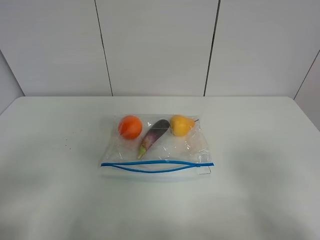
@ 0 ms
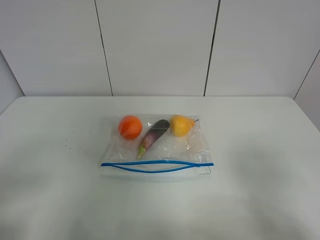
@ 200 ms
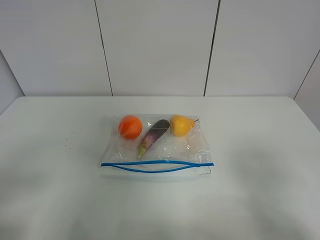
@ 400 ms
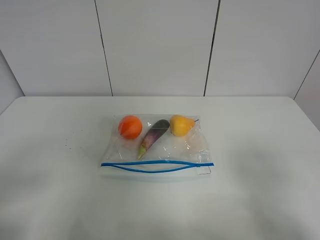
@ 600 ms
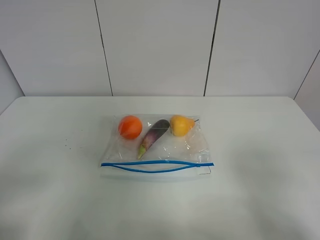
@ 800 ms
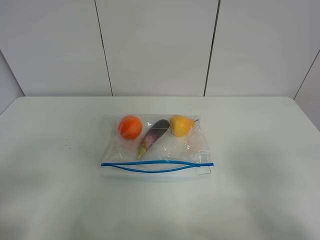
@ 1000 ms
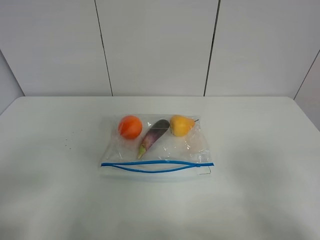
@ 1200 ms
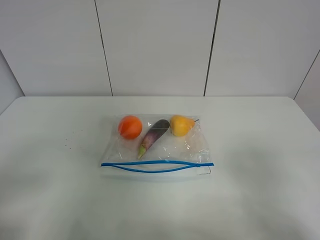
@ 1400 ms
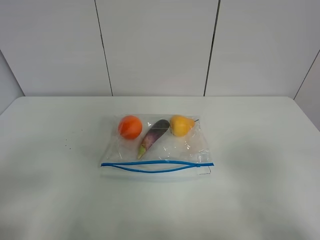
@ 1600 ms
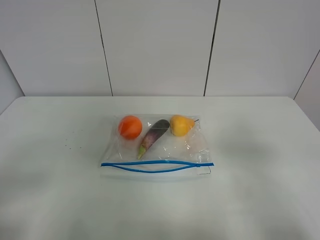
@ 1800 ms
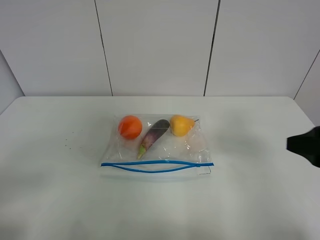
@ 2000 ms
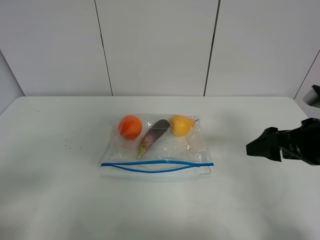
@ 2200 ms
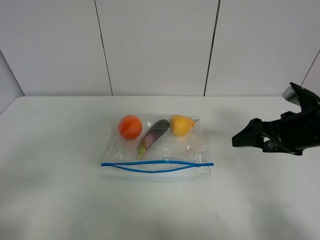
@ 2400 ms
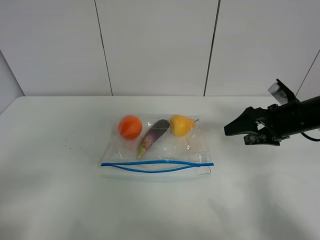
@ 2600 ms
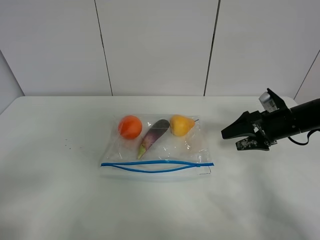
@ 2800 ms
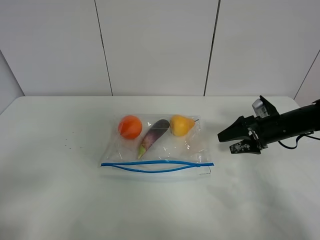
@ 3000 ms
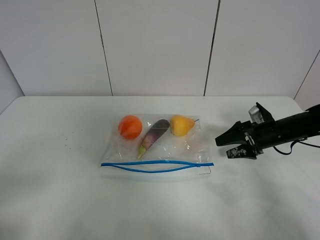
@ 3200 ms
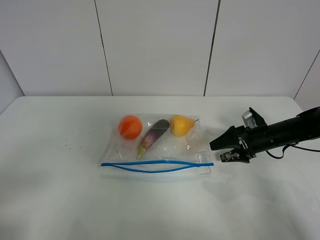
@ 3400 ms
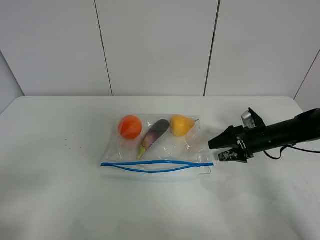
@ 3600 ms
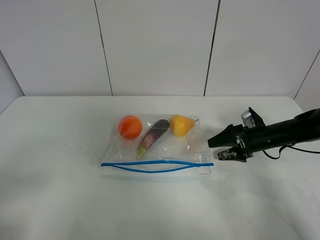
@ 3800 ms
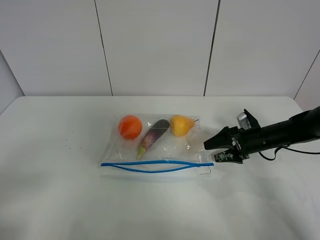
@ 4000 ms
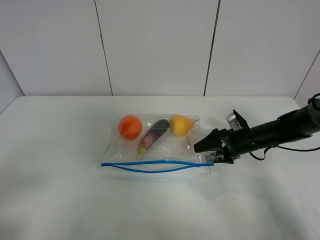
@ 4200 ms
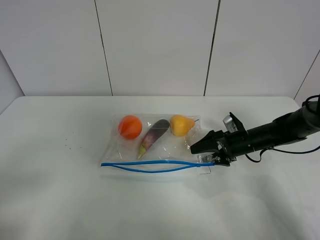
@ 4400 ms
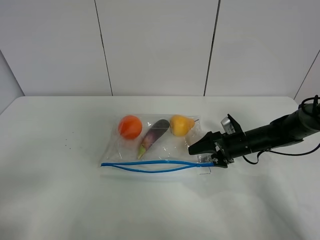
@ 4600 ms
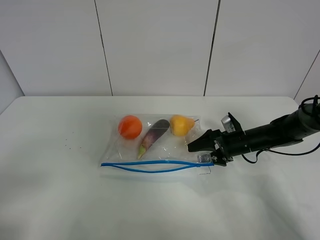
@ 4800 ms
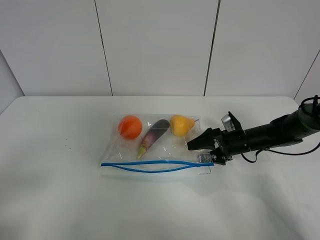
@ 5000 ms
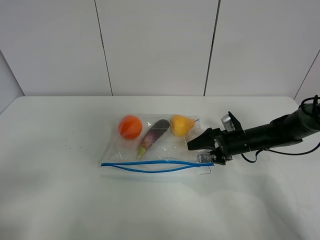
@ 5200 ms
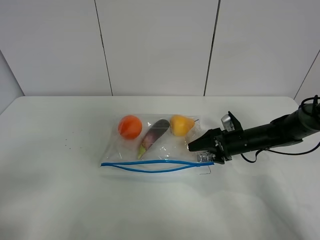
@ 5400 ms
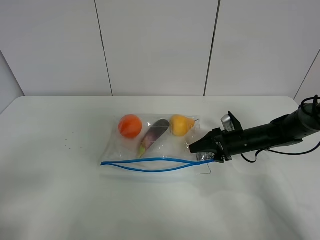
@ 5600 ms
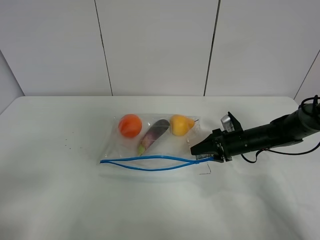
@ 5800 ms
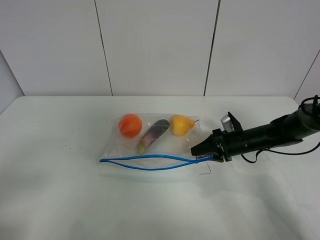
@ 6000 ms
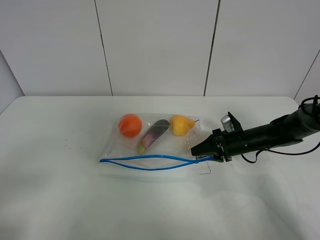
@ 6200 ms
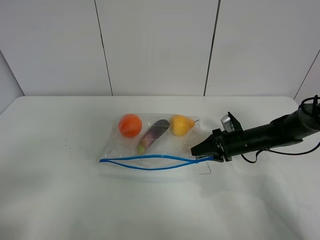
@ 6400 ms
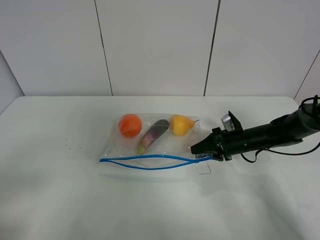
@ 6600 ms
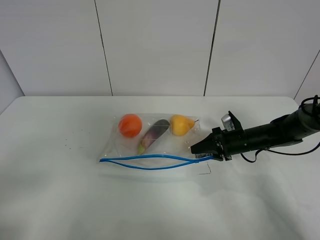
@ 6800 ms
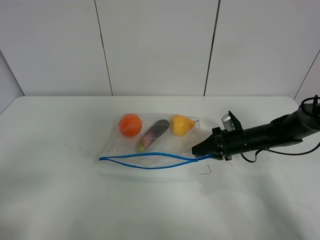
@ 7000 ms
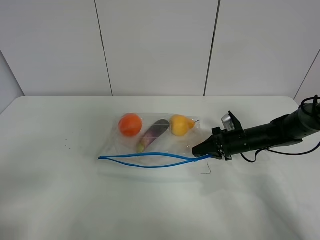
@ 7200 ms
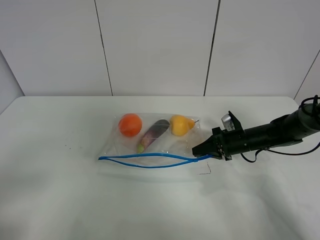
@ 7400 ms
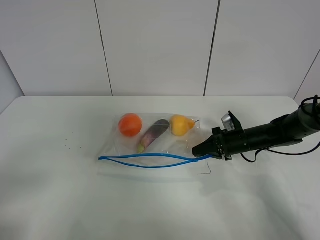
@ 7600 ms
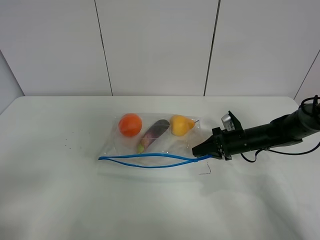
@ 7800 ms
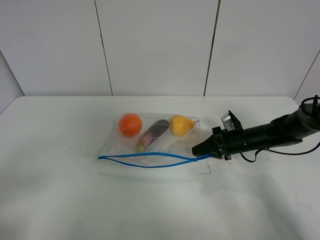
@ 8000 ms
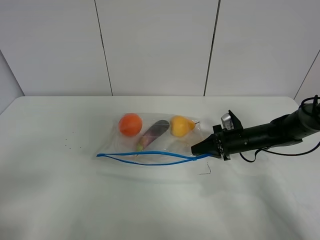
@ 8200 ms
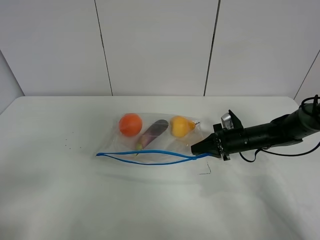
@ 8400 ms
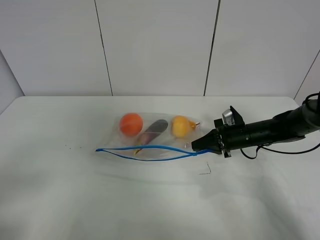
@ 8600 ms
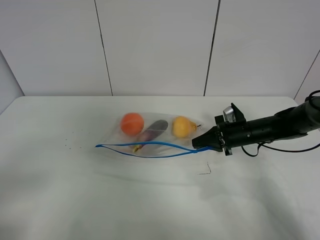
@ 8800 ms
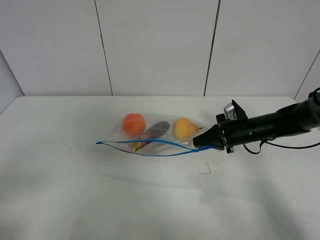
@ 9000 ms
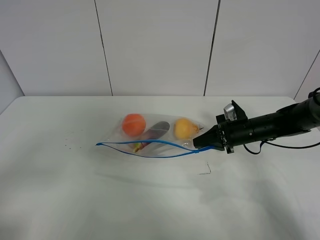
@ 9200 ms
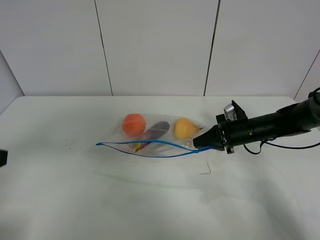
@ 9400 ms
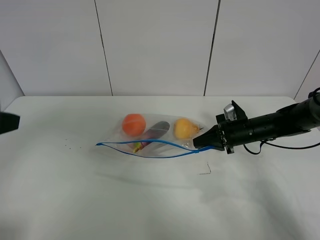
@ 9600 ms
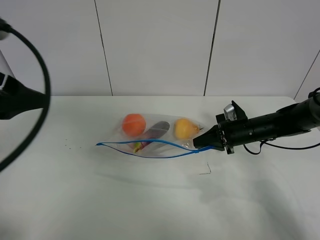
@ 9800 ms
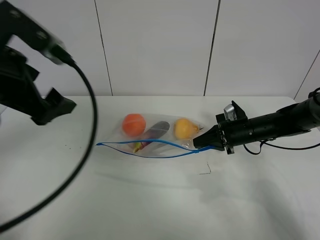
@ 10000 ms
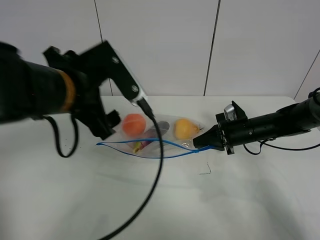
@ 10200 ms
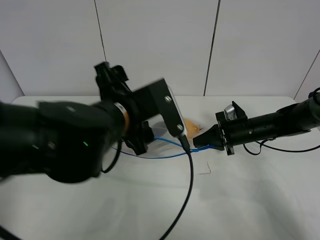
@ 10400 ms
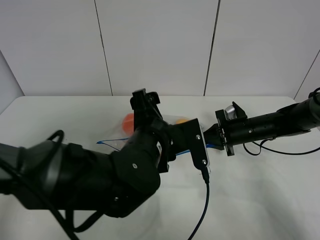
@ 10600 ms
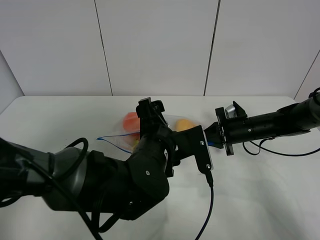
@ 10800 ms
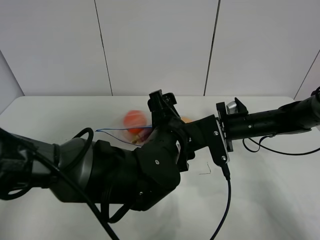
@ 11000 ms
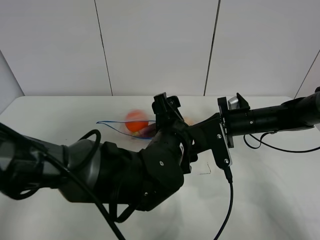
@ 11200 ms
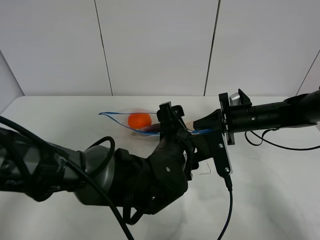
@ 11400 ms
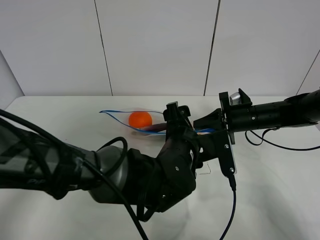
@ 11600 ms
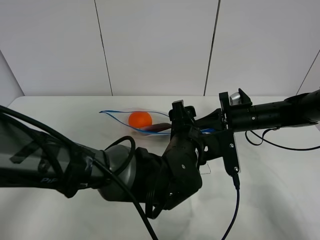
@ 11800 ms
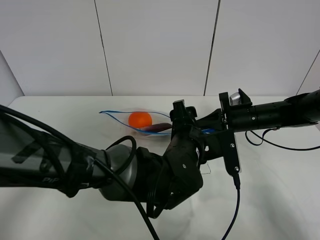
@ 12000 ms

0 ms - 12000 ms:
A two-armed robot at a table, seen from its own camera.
Step, 0 ms - 7400 ms: Grasp the fruit bag with right gripper.
Step, 7600 ms - 9200 ms: Lift the fruit bag with your right gripper.
1600 ms - 3000 ms: The right gripper shifts some 35 cm forward and downward.
3000 ms - 4400 ms: The right gripper travels to the left and downward by roughly 10 cm.
4400 ms - 6000 ms: The right gripper closes.
6000 ms - 7600 ms: The two grippers keep their place.
7600 ms - 9000 ms: There are only small adjustments of the grippers.
9000 ms - 10400 ms: The left gripper travels to the right and forward by roughly 35 cm.
10400 ms - 12000 ms: The left gripper moves to the right and downward, some 15 cm.

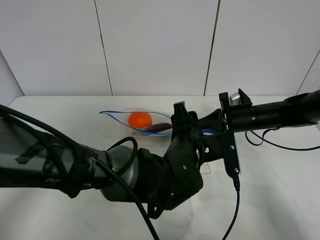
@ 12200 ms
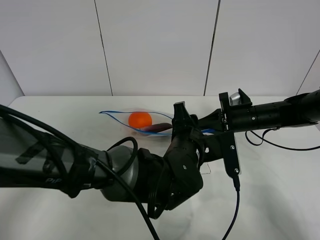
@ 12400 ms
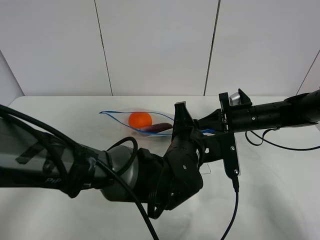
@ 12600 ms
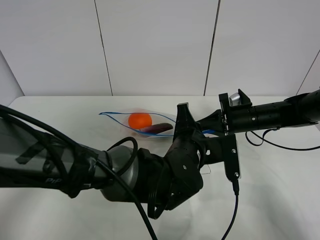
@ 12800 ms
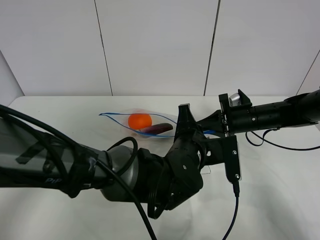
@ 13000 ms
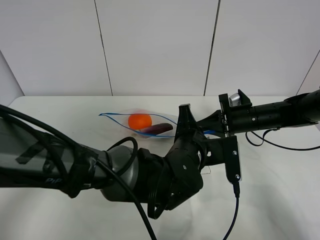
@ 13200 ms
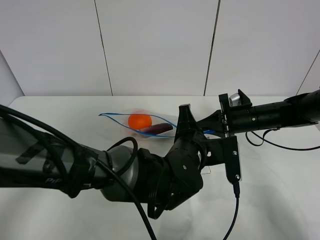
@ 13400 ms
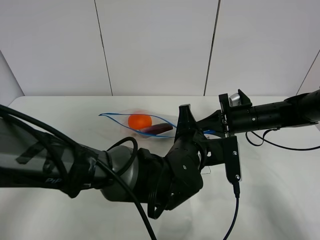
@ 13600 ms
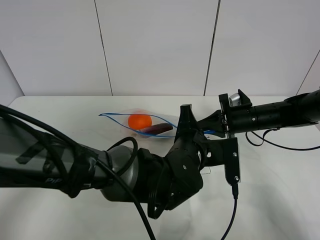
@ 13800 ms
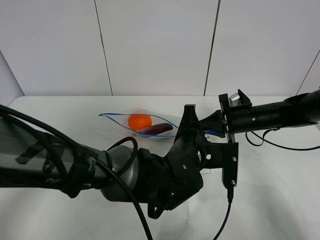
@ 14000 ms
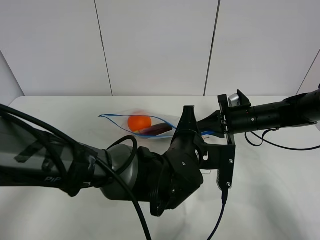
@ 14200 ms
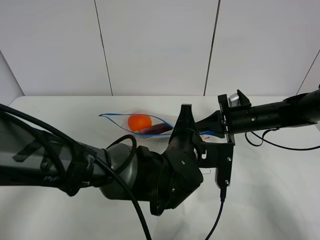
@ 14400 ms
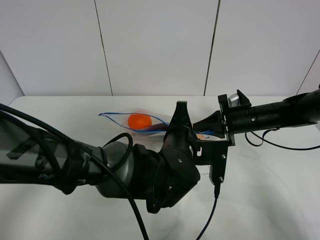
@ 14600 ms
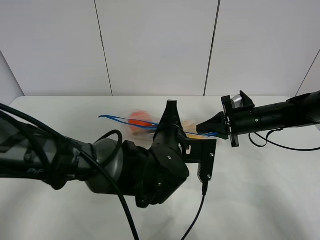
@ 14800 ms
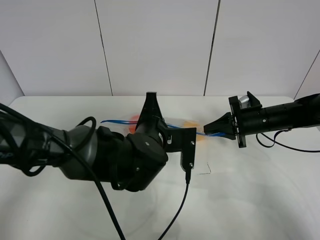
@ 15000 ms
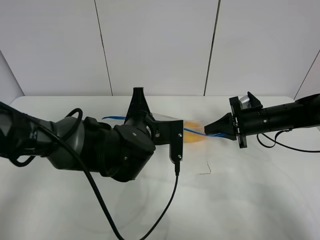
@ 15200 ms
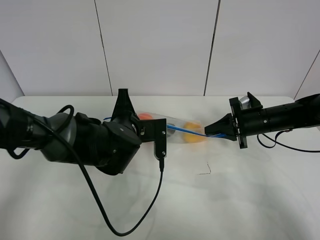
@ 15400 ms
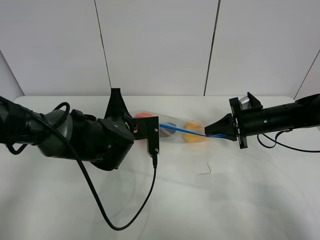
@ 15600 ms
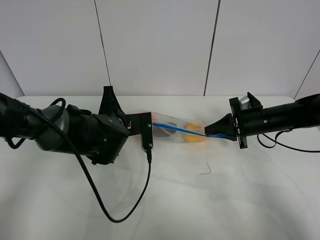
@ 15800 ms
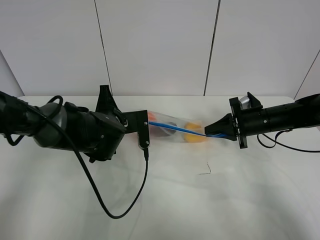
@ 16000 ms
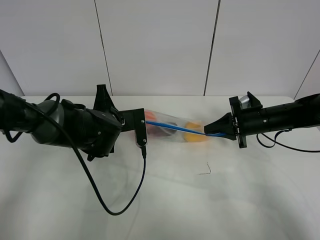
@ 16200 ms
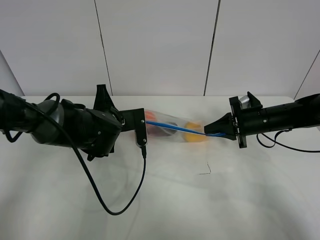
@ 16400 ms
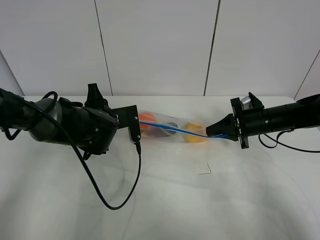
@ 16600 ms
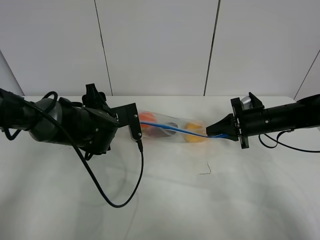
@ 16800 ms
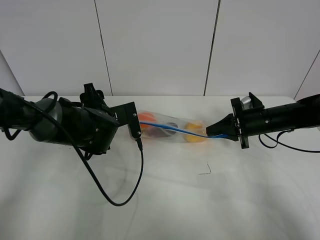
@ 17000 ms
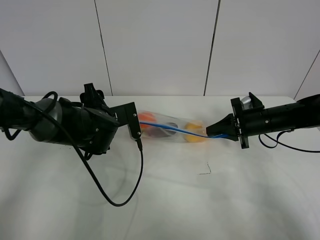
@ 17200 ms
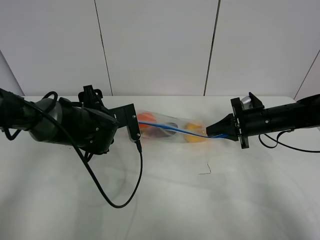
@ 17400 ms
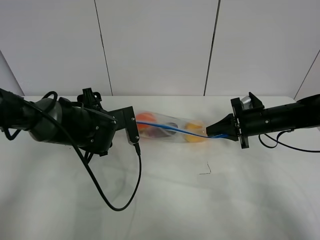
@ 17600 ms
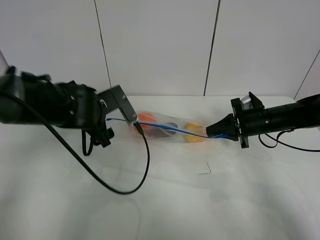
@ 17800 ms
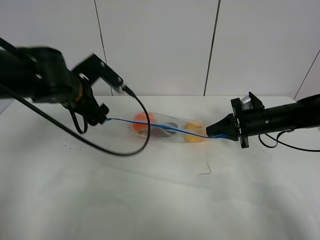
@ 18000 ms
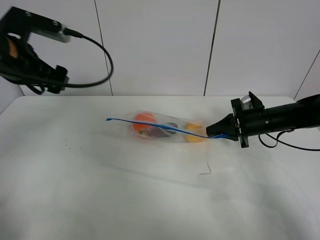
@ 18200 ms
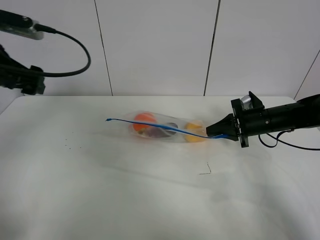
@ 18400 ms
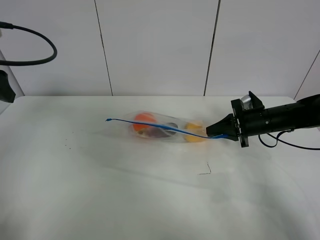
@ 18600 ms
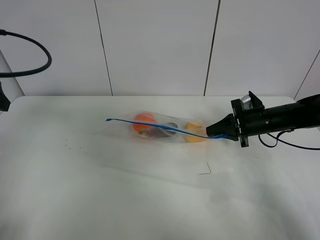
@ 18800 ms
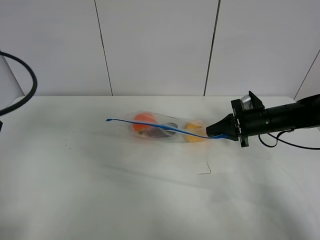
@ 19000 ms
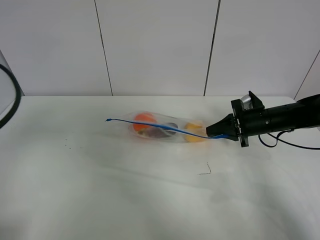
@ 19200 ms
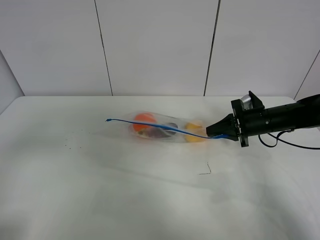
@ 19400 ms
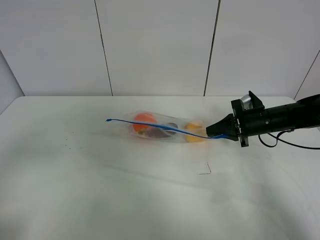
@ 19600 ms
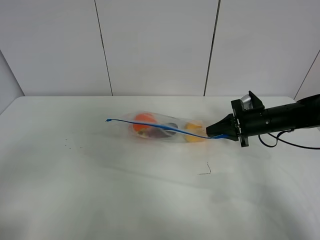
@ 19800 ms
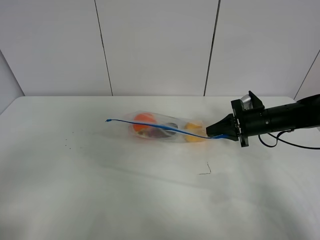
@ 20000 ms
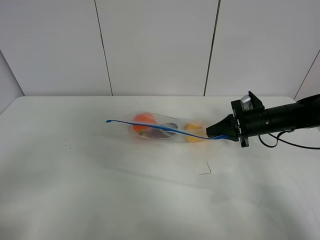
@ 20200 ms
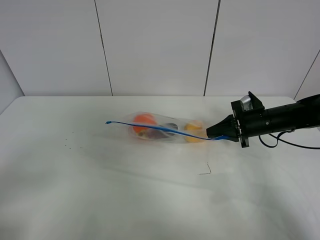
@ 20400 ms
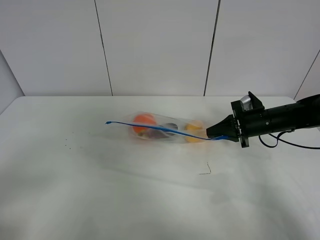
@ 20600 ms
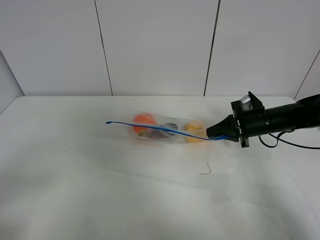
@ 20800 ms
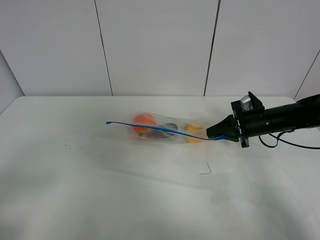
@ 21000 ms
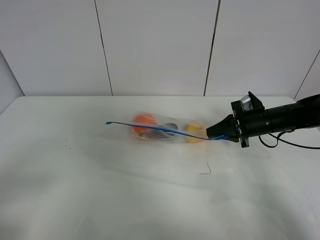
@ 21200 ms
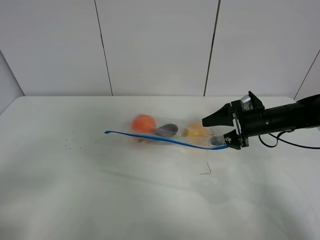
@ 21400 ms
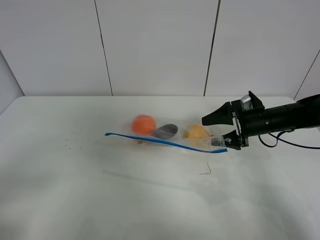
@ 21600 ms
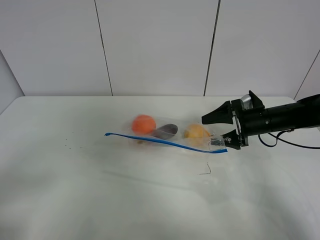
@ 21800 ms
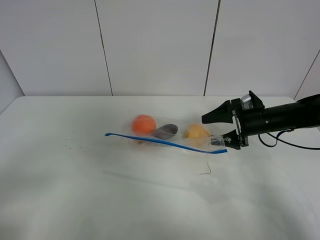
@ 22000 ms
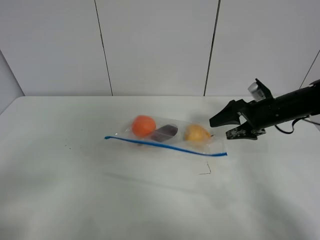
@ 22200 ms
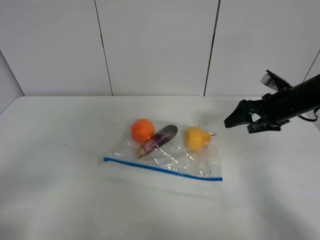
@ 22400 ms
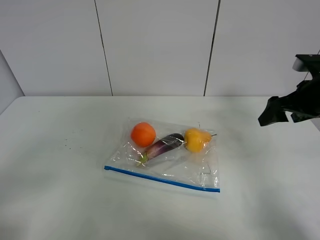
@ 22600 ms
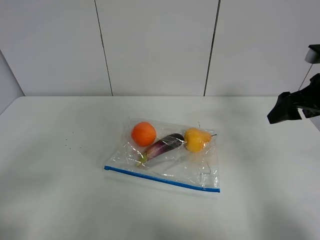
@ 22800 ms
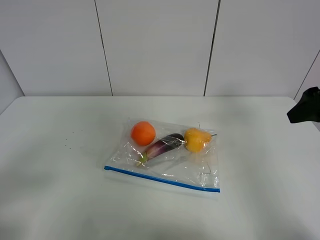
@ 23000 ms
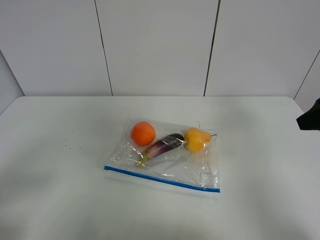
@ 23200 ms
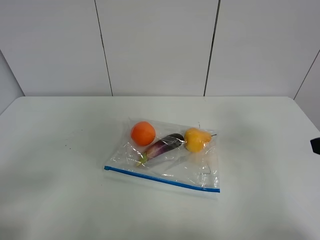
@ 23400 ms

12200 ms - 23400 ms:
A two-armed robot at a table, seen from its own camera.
Step, 12200 ms - 18000 ms: Pull the fruit bag with left gripper.
Step, 18200 ms - 22400 ms: Place the fruit bag with right gripper.
12200 ms - 13800 ms: The left gripper closes.
13800 ms - 15400 ms: The left gripper travels to the left and forward by roughly 15 cm.
15400 ms - 17000 ms: The left gripper goes approximately 5 cm to the left, and opens up.
17000 ms - 18600 ms: The left gripper shifts roughly 30 cm to the left and upward.
18600 ms - 20200 ms: The left gripper heads backward, covering approximately 25 cm.
20200 ms - 21800 ms: The right gripper opens its fingers.
21800 ms - 23400 ms: The right gripper shifts some 30 cm backward and upward.
